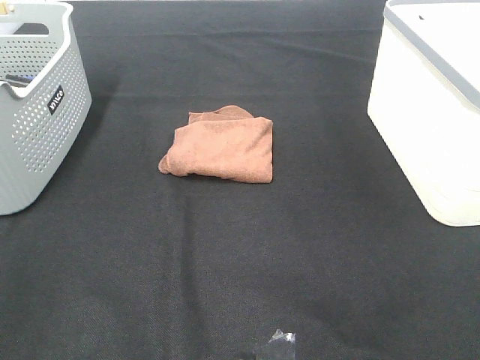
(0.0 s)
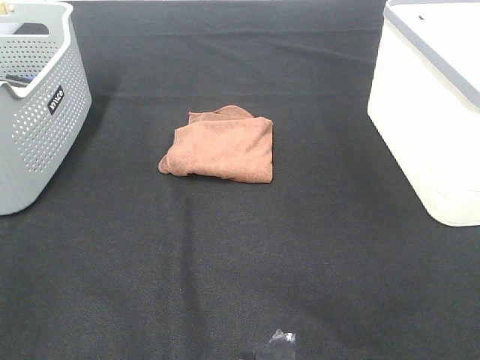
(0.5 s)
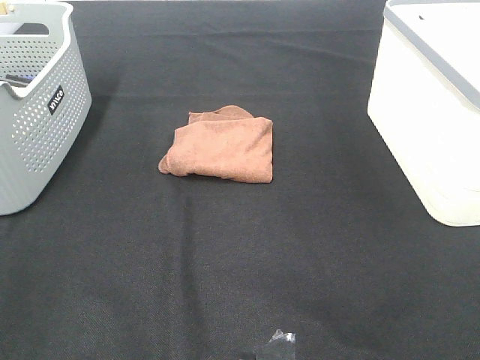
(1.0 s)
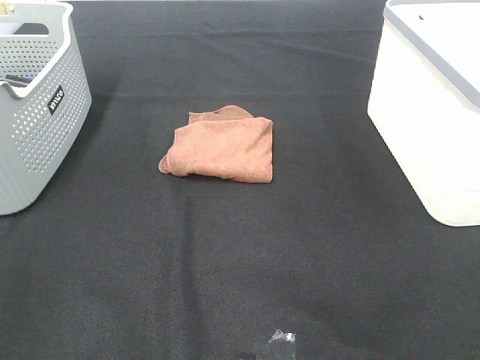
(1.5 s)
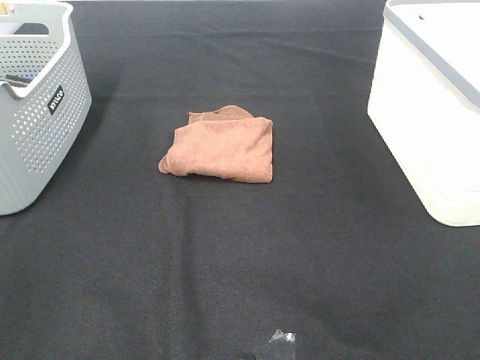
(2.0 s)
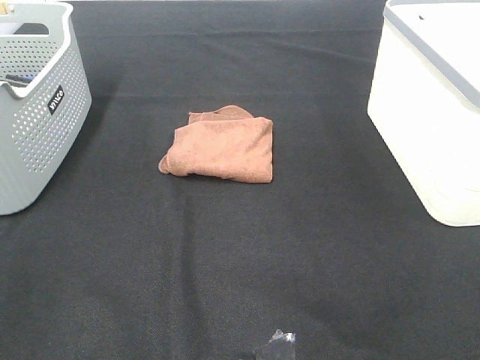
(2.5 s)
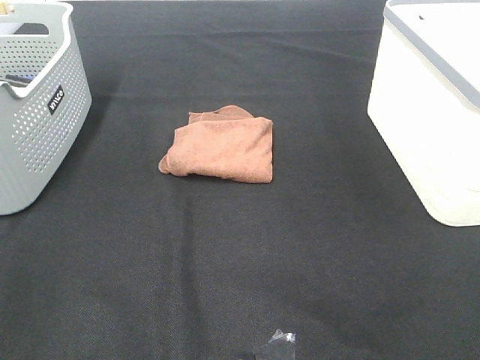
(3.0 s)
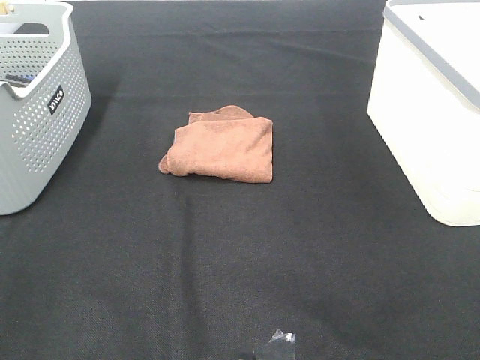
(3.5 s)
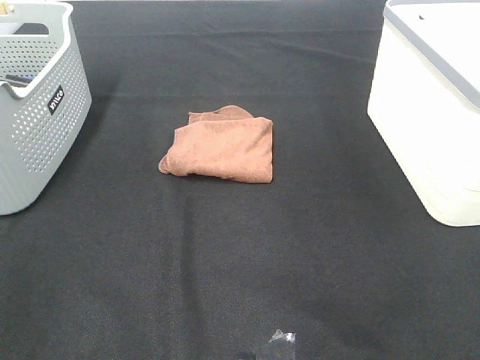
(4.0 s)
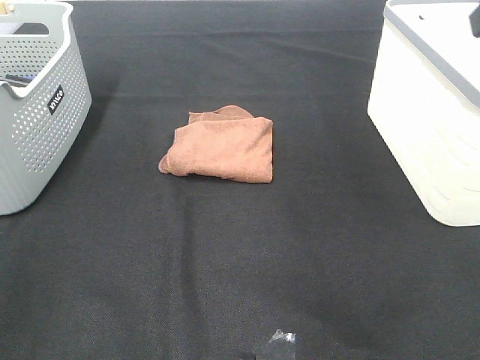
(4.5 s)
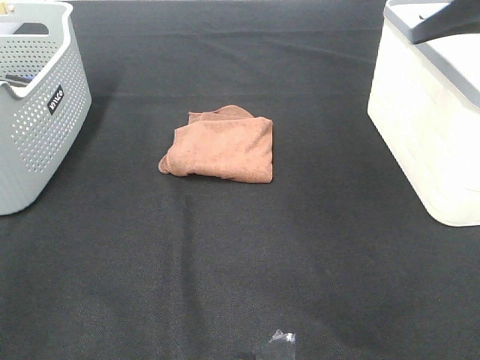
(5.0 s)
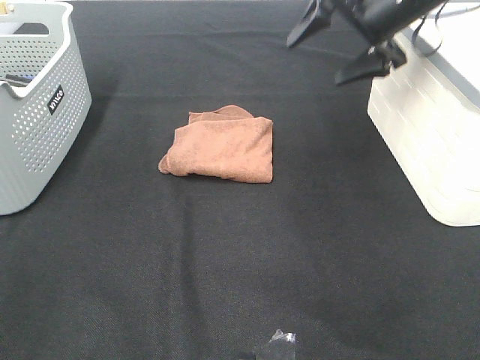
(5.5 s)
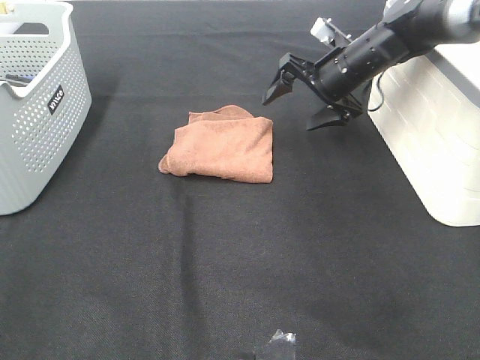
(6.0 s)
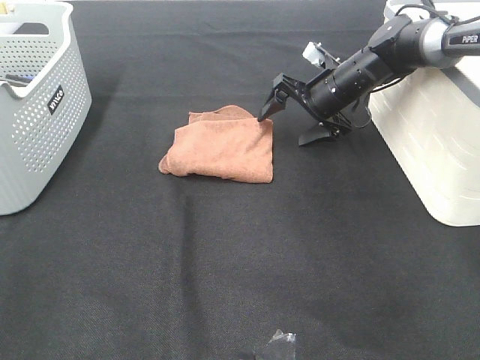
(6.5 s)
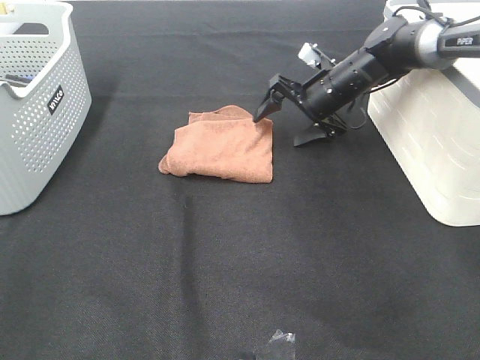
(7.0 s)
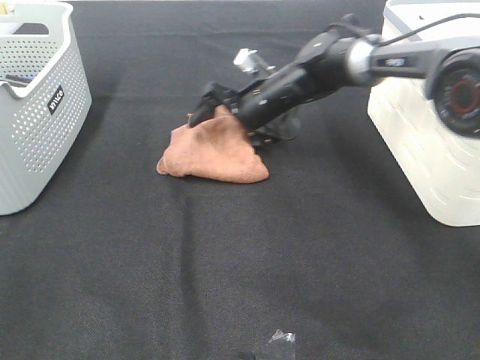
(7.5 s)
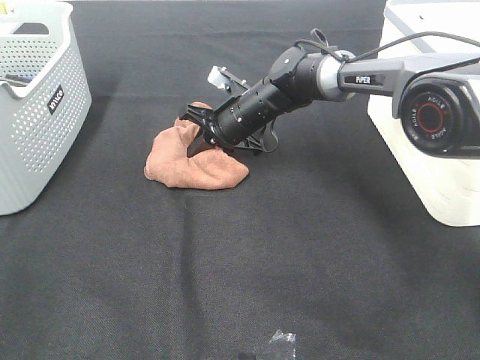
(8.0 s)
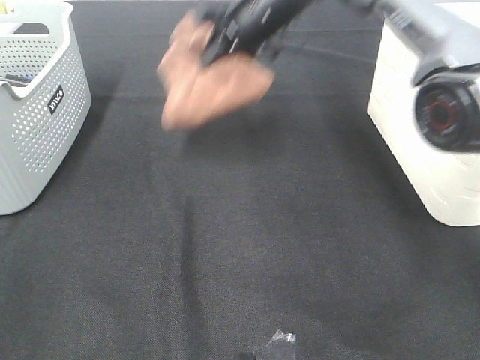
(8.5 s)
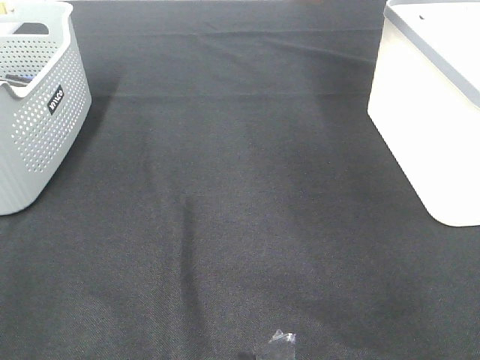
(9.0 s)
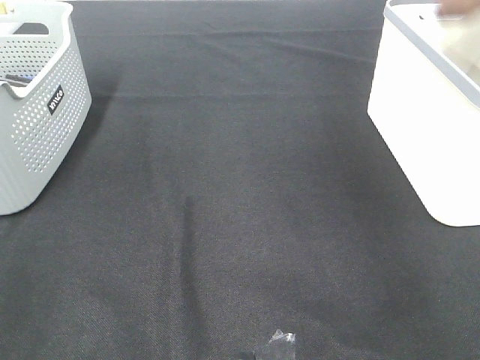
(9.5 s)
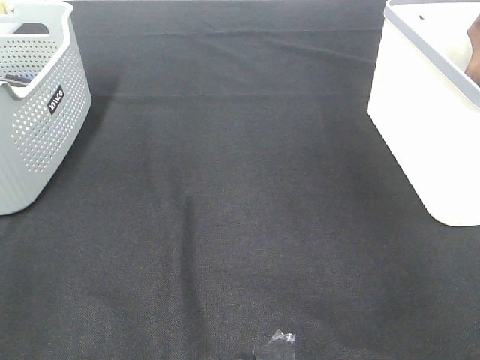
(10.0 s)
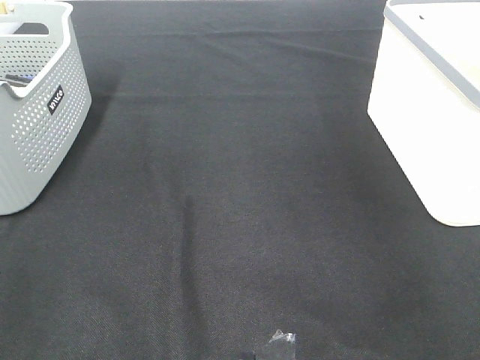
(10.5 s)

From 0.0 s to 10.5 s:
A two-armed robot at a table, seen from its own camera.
Step, from 0.0 s to 7.5 s: Right hand: grab the folded brown towel.
Step, from 8.0 s to 10.0 s: Right hand: place the brown towel in right basket.
From 0.0 s to 2.0 s: Both grippers stay put.
From 4.0 s to 6.5 s: The right gripper moves forward and downward, approximately 50 cm.
From 6.5 s to 8.5 s: The right gripper goes about 20 cm upward and to the left, and closes its fingers.
From 8.5 s to 10.5 s: The right gripper heads to the right, covering about 35 cm, and opens its fingers.

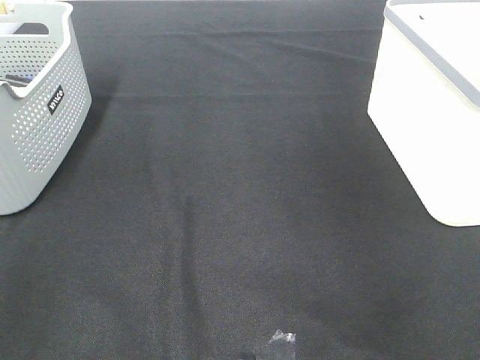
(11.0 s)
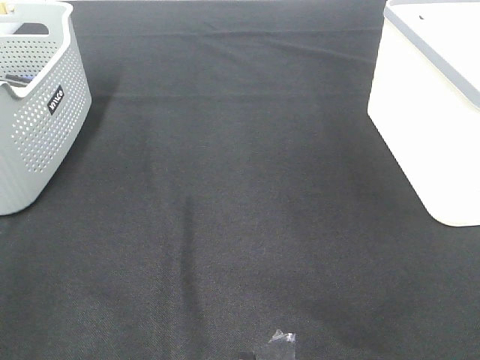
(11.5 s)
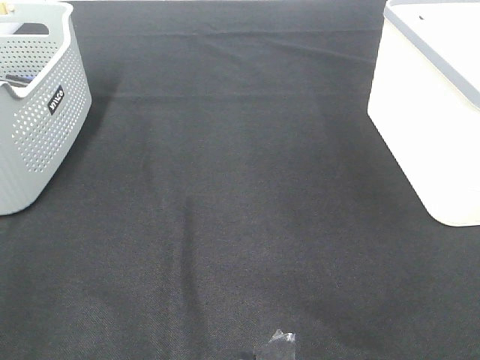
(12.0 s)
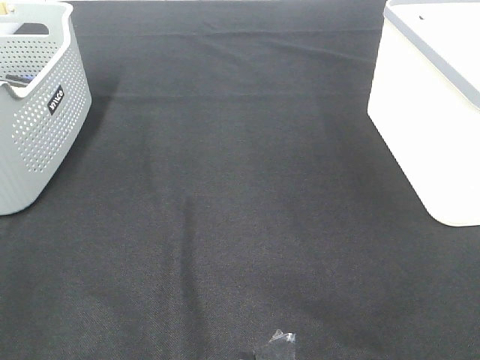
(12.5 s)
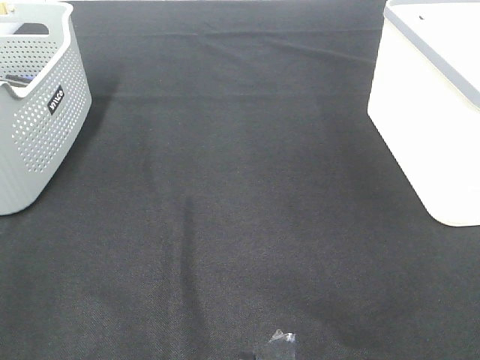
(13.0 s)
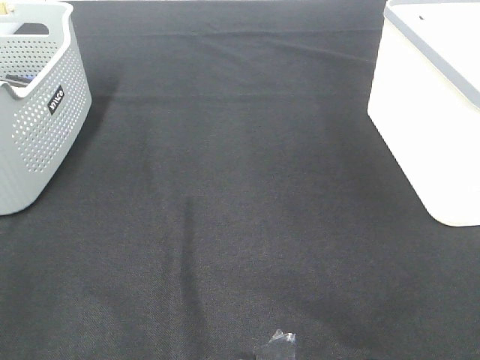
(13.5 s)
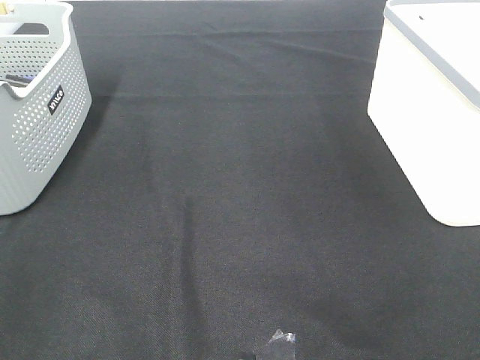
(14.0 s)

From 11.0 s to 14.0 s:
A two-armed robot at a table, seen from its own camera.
From 12.5 s to 14.0 s: Both grippers stay about where they are.

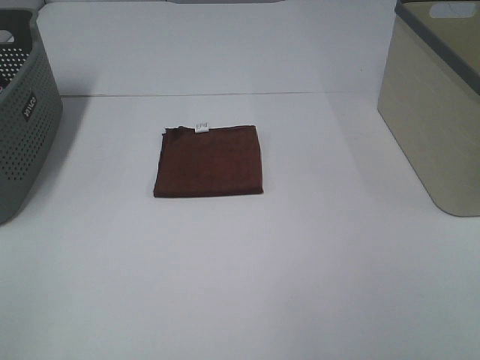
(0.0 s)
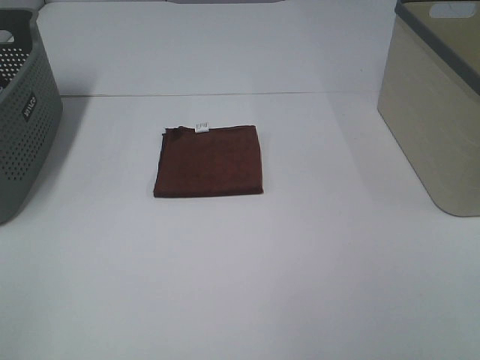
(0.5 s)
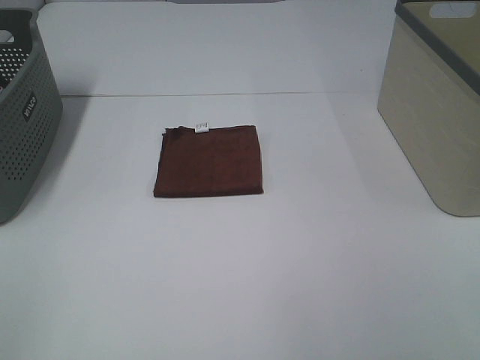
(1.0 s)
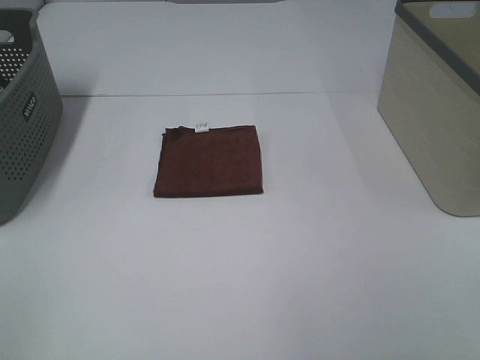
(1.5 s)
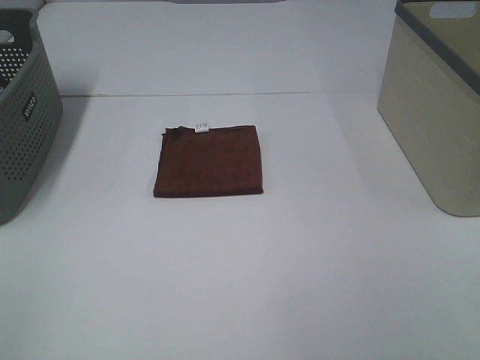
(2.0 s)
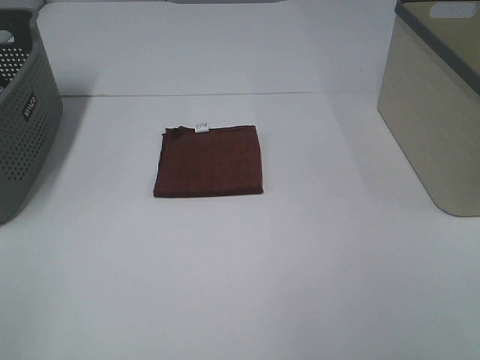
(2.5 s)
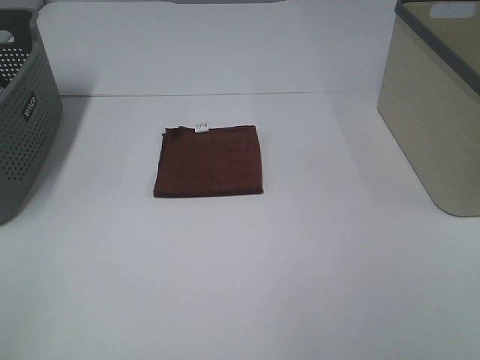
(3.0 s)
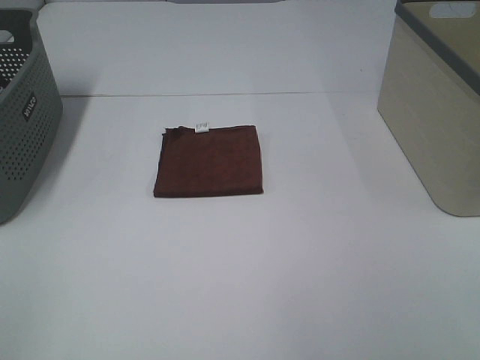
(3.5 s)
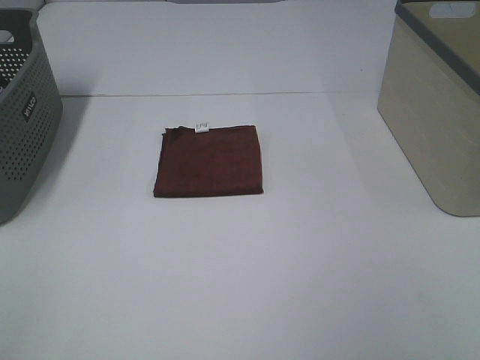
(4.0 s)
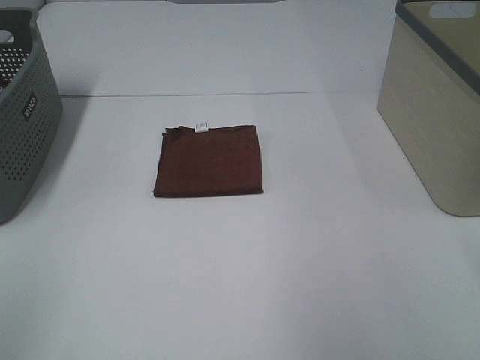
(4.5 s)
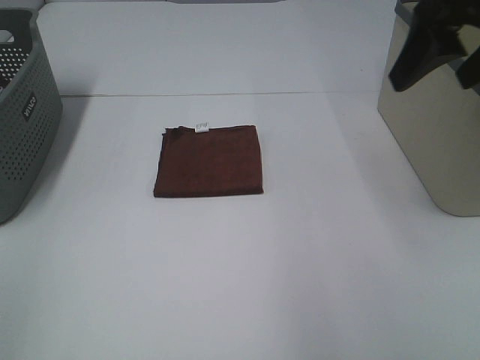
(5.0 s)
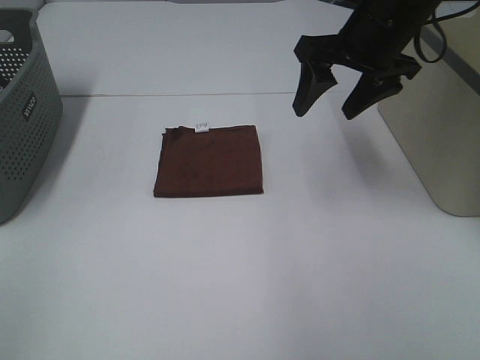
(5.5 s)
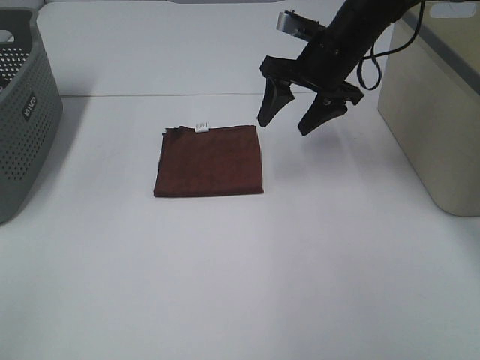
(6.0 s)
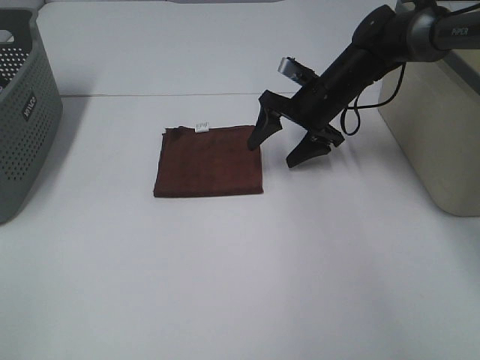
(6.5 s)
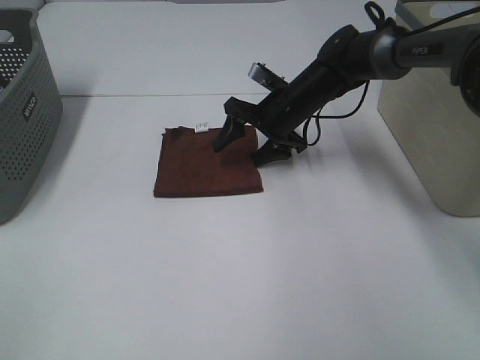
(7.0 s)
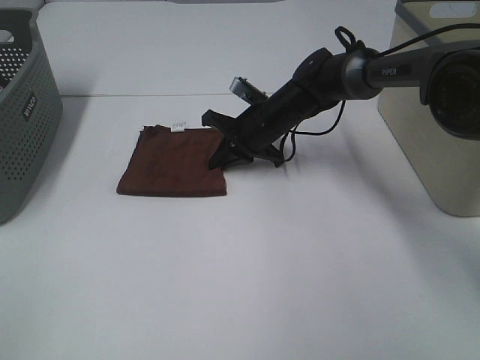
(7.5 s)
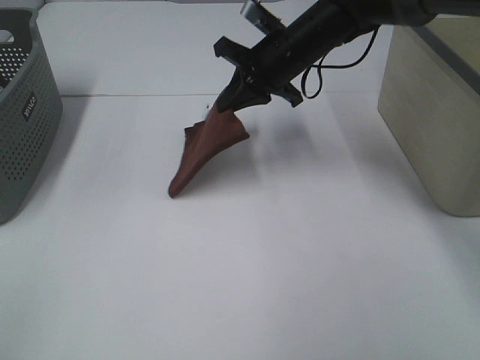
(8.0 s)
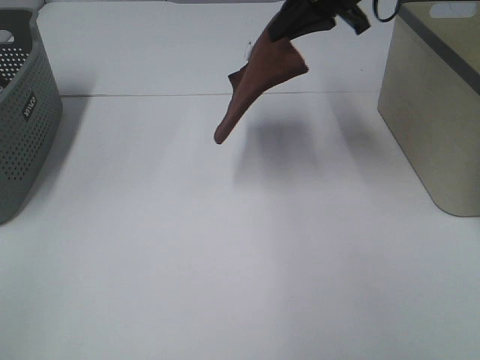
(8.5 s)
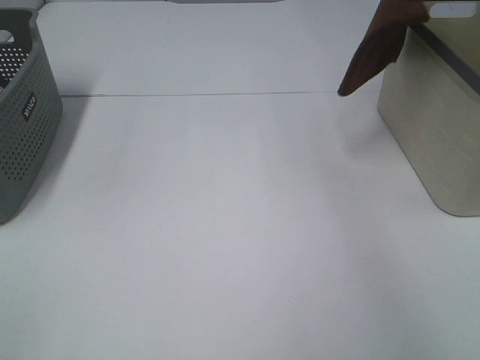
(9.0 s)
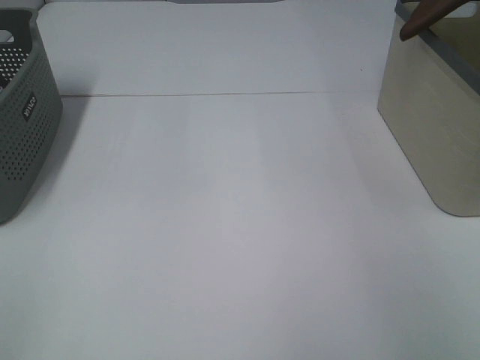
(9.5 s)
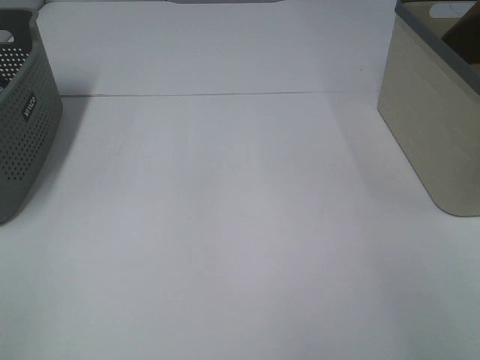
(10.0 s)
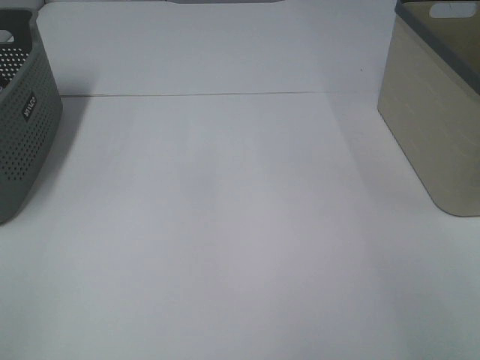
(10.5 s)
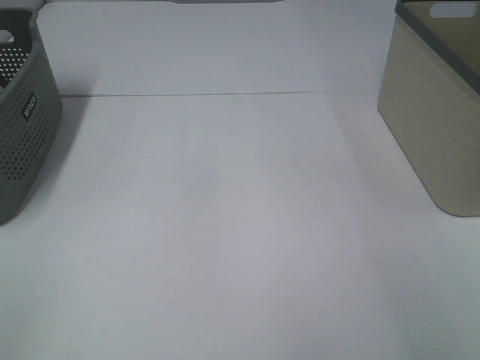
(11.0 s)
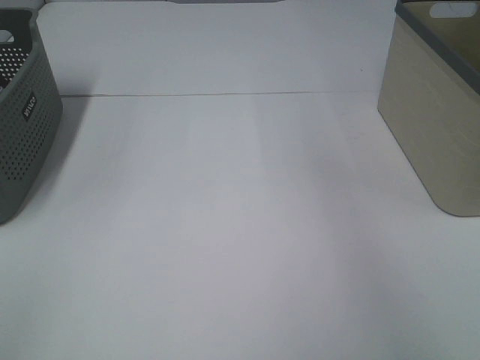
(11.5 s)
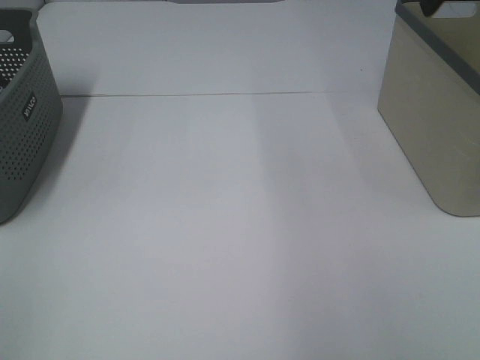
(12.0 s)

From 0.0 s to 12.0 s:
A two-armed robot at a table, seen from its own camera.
Step, from 0.0 s to 7.5 s: Right hand: grab the folded brown towel.
Step, from 8.0 s to 10.5 s: Right hand: place the brown towel in right basket.
From 0.0 s to 2.0 s: Both grippers stay put.
From 4.0 s to 6.0 s: The right gripper moves forward and to the left, approximately 40 cm.
From 6.0 s to 8.0 s: The right gripper moves to the left, roughly 5 cm, travels downward and back again, roughly 10 cm each way, and closes up.
From 8.0 s to 10.0 s: The right gripper moves to the right and upward, about 40 cm.
From 10.0 s to 12.0 s: The right gripper shifts about 20 cm to the left and backward, and opens.
